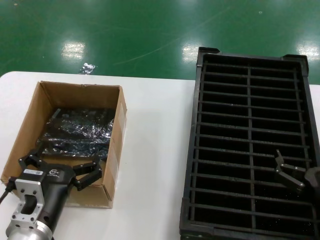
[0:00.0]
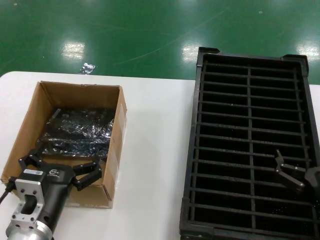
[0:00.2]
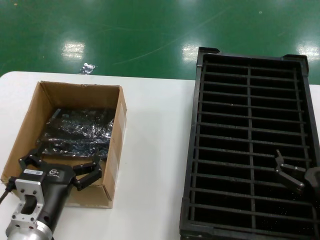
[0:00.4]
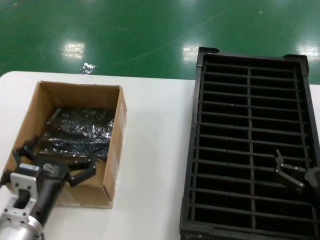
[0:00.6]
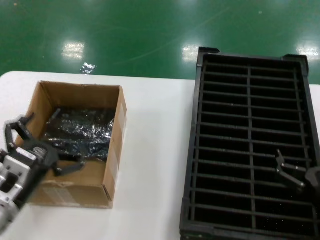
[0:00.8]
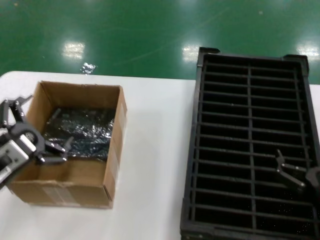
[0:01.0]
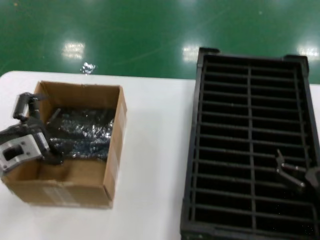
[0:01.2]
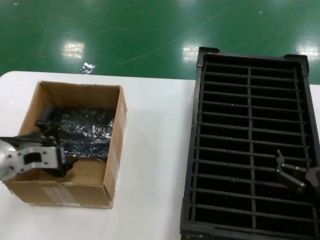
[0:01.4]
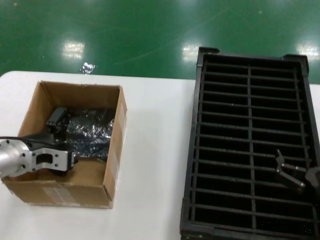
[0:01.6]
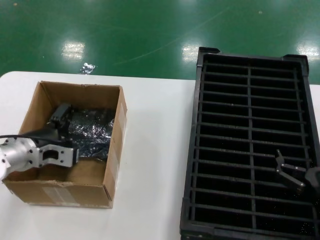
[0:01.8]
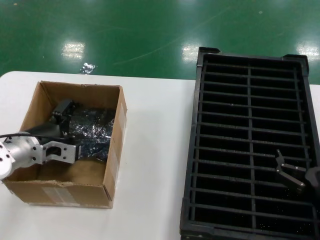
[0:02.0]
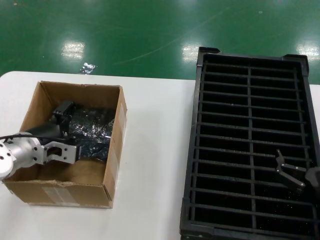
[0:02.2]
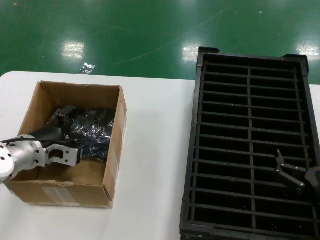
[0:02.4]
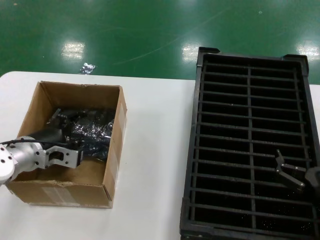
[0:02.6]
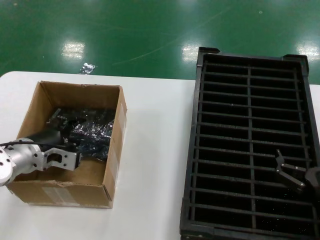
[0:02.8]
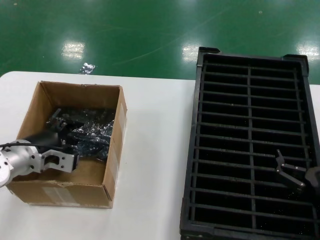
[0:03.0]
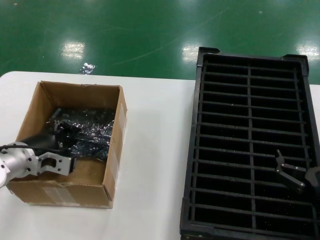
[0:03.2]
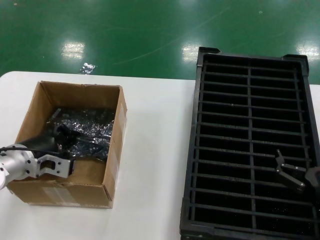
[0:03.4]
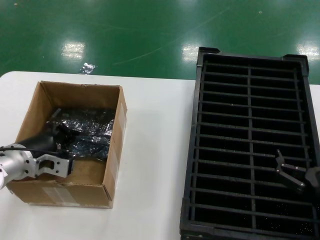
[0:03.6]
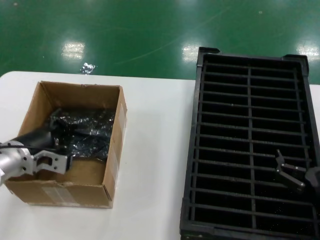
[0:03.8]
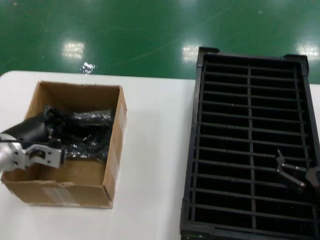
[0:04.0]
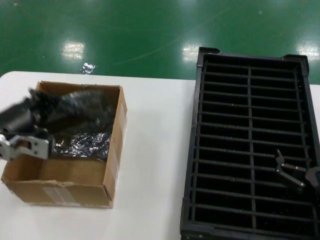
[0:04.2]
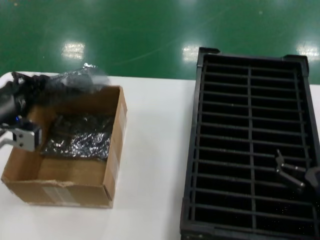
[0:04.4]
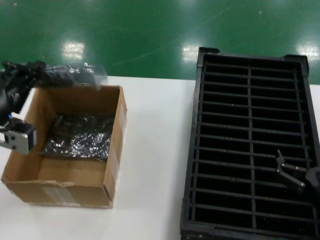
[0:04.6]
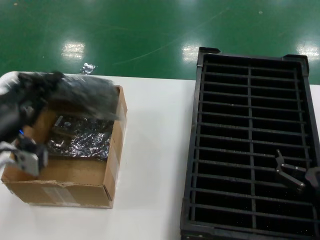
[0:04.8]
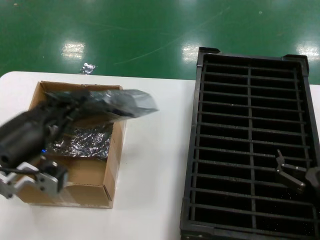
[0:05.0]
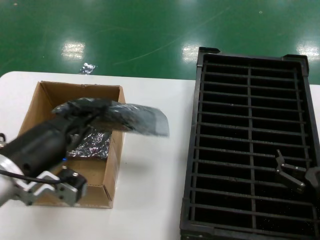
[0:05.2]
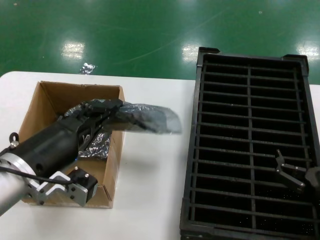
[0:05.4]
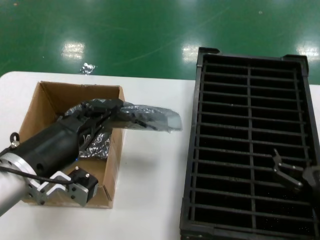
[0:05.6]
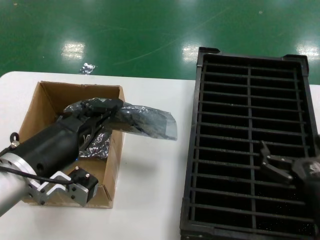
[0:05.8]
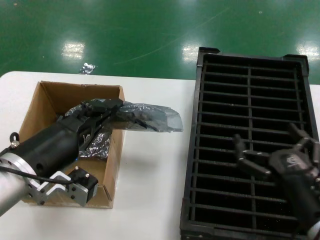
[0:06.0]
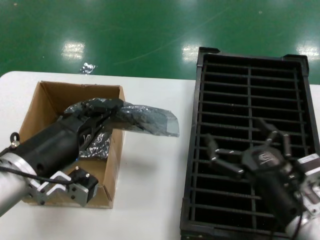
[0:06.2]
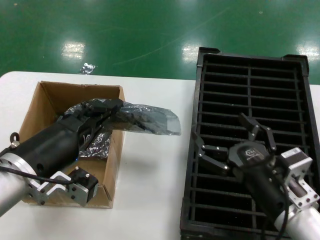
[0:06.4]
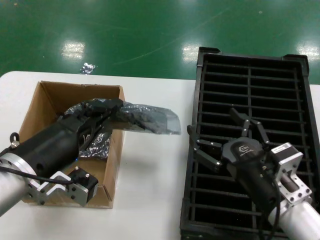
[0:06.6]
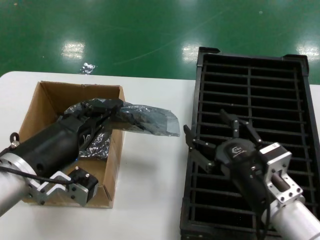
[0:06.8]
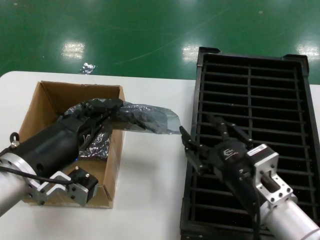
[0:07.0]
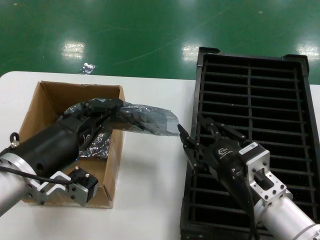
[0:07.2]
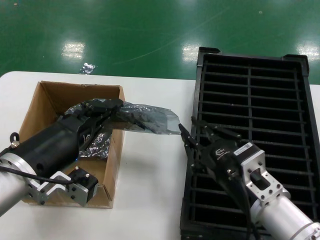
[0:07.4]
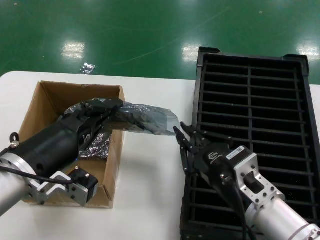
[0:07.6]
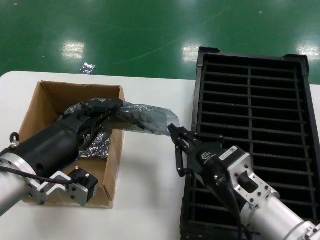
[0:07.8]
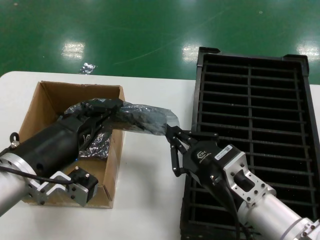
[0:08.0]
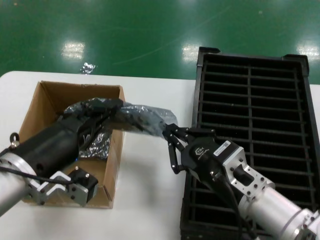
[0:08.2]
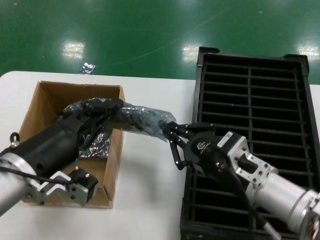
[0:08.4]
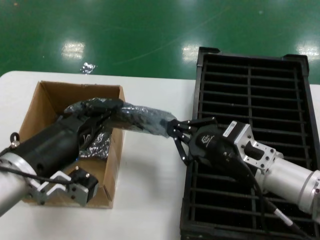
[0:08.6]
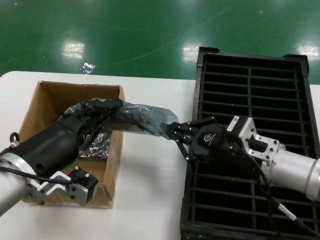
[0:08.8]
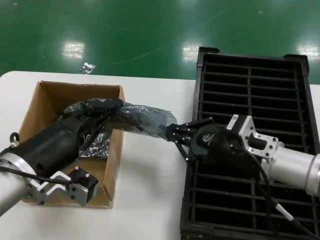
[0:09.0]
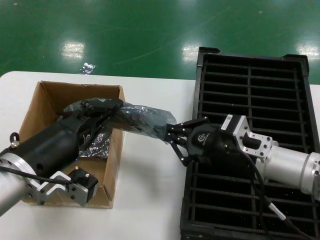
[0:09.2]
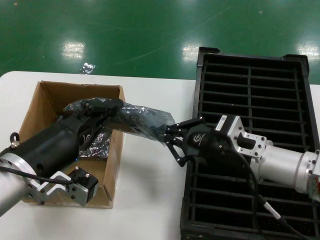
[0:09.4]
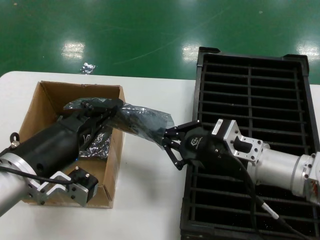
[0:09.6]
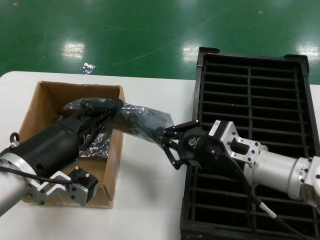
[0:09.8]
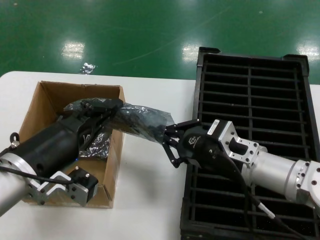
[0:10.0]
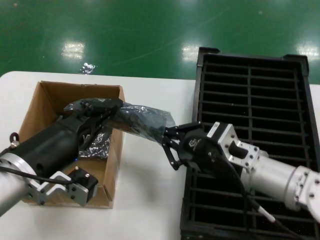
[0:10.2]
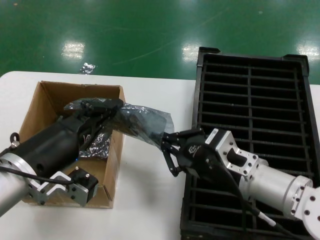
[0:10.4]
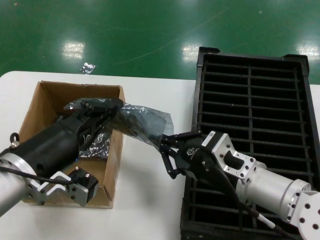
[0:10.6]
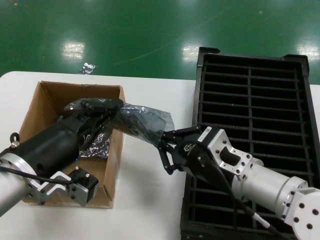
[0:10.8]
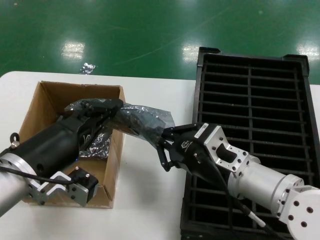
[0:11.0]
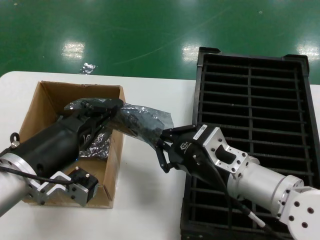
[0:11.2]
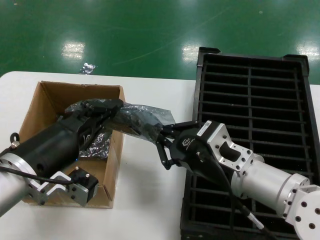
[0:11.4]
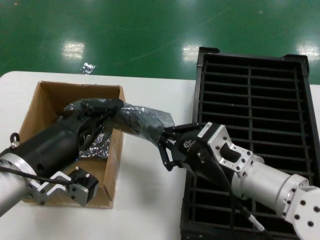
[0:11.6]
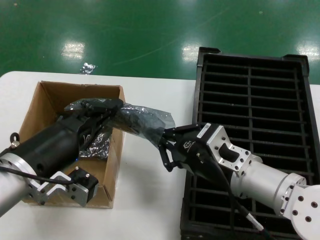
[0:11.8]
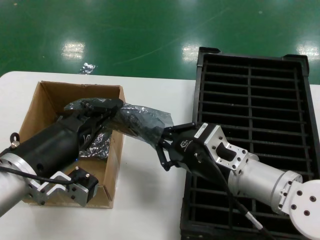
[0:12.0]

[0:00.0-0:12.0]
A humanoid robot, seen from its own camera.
Task of the whole recording: take out graphics card from box remove packaging put into black container.
Step, 0:00.0 to 0:03.6: Grasp the bag.
Step, 0:03.8 to 0:05.4: Lift the bag.
0:00.0 to 0:01.6: The left hand travels forward, to the left and upward by some 20 cm.
0:01.6 to 0:03.0: The hands make only small movements.
0:03.0 to 0:04.4: The left hand shifts roughly 10 cm upward and backward.
0:04.4 to 0:06.0: The left hand goes some 10 cm to the right and backward.
0:06.0 to 0:07.6: The right hand shifts roughly 10 cm to the left.
0:07.6 to 0:09.0: The right hand travels forward by approximately 10 cm.
0:09.0 to 0:10.4: The right hand moves approximately 5 cm.
0:10.4 to 0:12.0: The hands stay close to where they were, moving slightly.

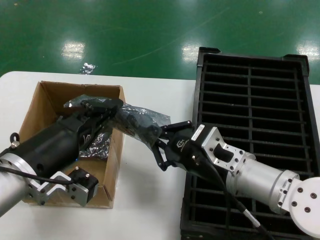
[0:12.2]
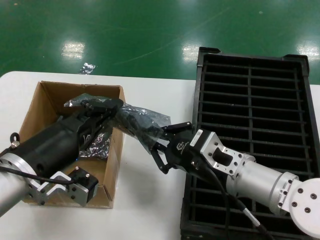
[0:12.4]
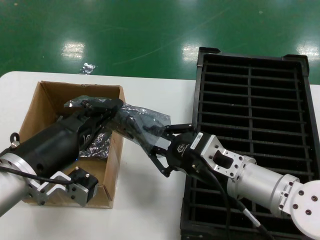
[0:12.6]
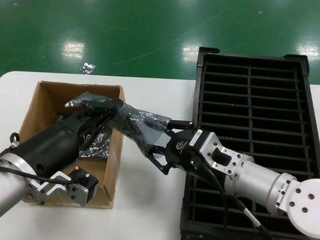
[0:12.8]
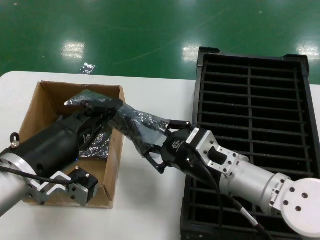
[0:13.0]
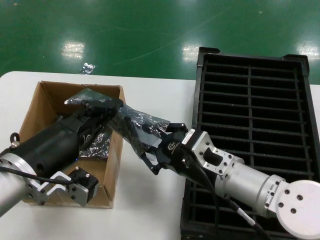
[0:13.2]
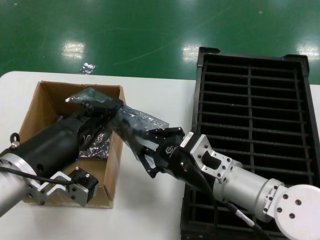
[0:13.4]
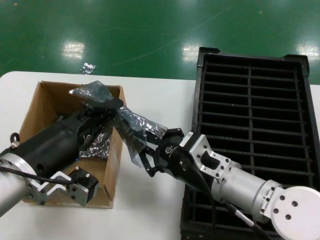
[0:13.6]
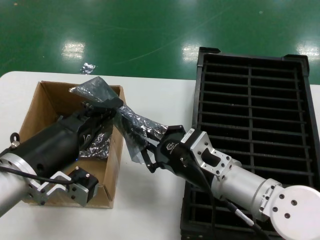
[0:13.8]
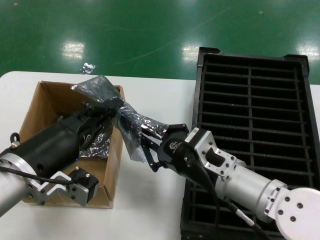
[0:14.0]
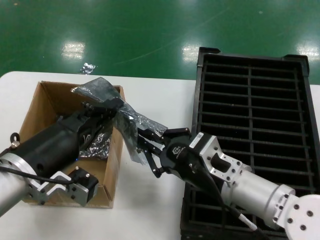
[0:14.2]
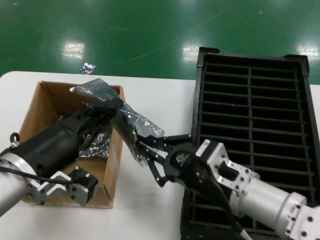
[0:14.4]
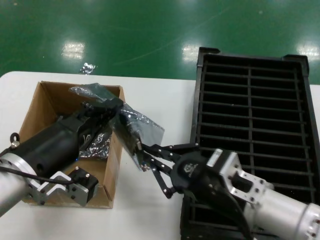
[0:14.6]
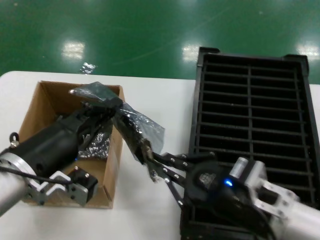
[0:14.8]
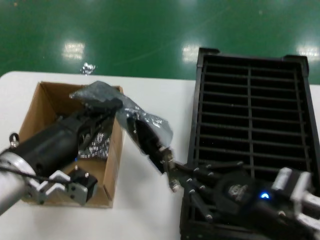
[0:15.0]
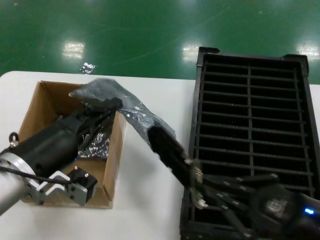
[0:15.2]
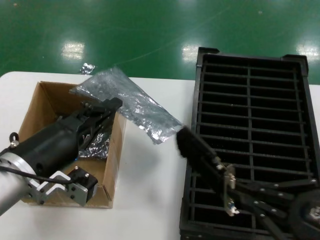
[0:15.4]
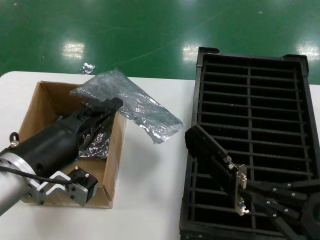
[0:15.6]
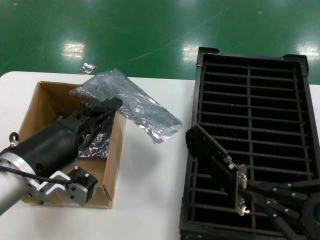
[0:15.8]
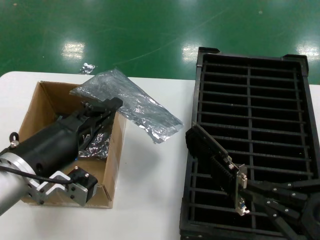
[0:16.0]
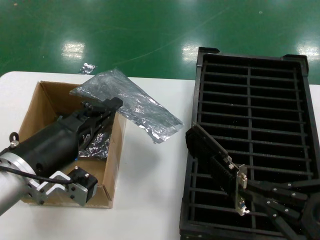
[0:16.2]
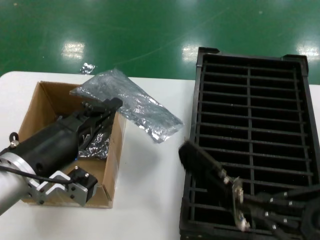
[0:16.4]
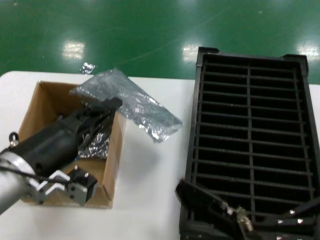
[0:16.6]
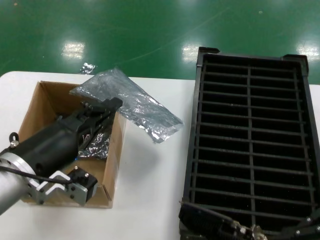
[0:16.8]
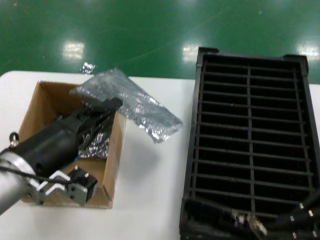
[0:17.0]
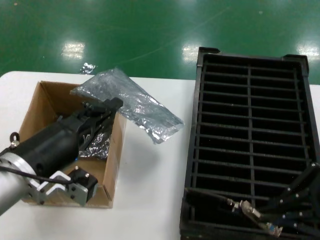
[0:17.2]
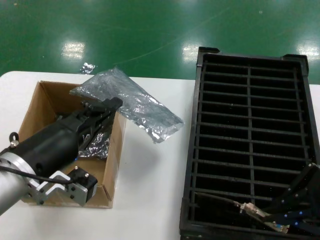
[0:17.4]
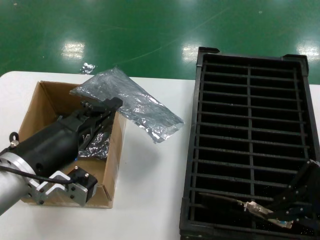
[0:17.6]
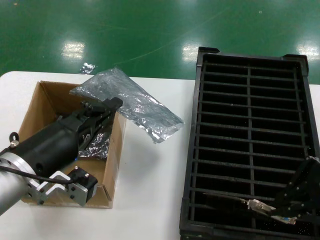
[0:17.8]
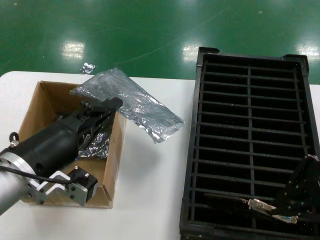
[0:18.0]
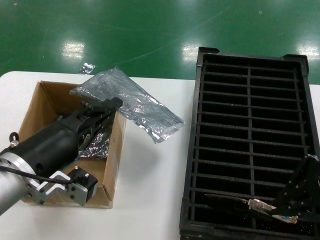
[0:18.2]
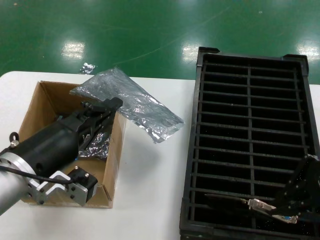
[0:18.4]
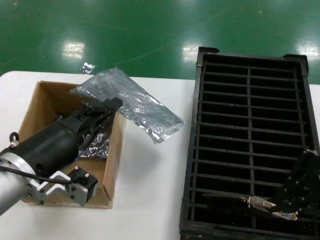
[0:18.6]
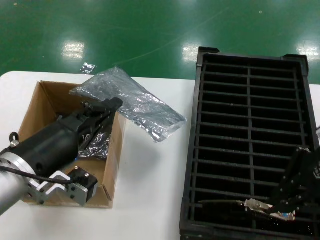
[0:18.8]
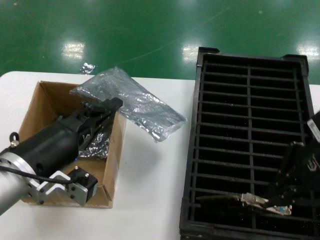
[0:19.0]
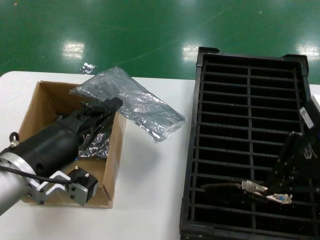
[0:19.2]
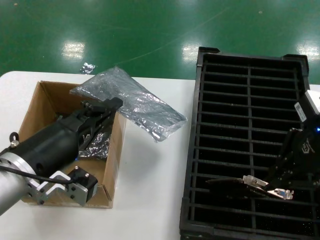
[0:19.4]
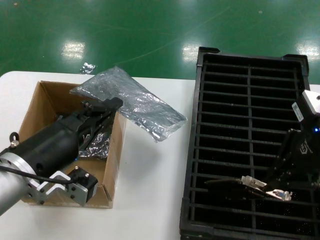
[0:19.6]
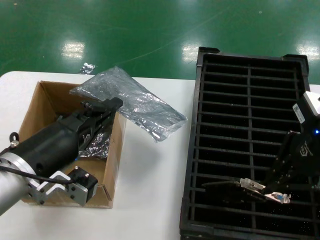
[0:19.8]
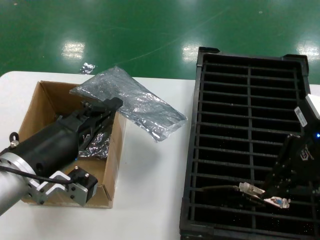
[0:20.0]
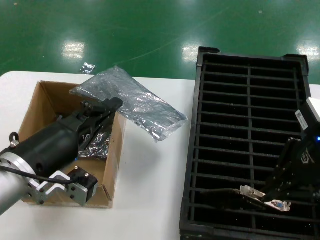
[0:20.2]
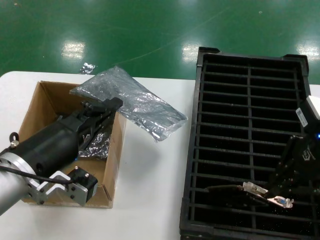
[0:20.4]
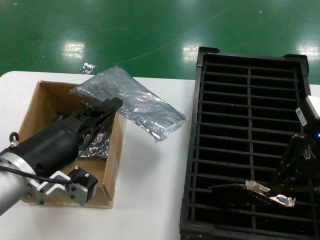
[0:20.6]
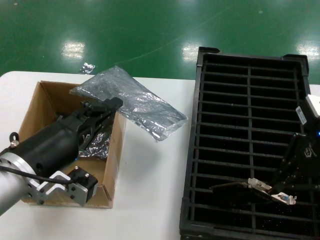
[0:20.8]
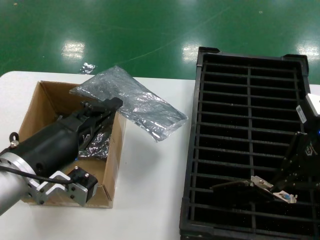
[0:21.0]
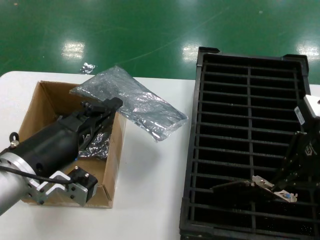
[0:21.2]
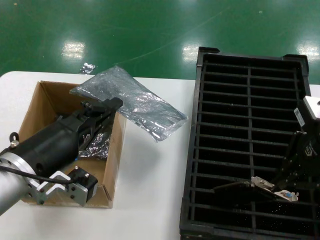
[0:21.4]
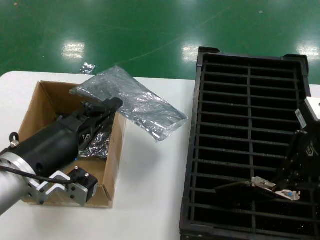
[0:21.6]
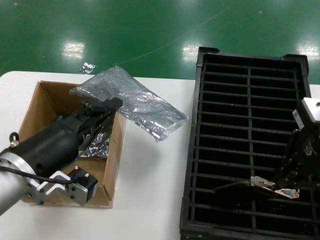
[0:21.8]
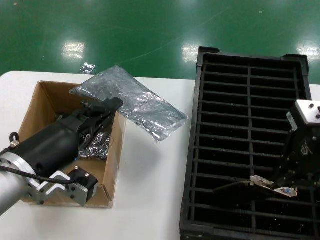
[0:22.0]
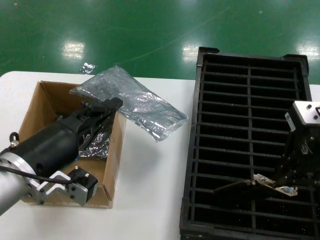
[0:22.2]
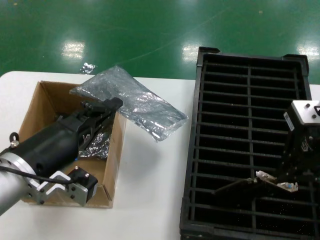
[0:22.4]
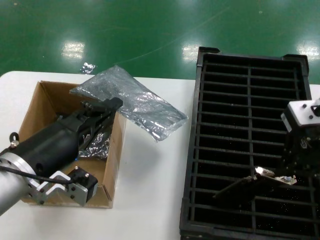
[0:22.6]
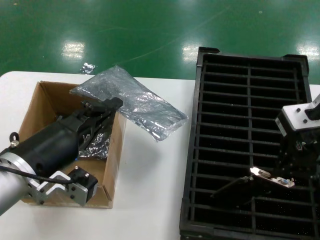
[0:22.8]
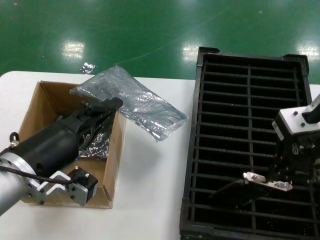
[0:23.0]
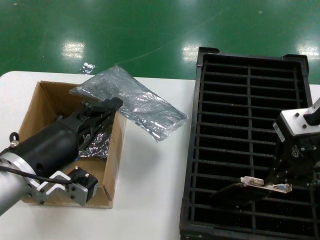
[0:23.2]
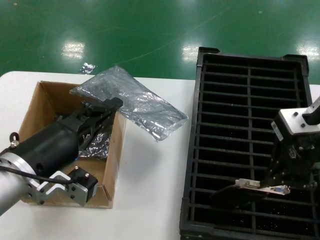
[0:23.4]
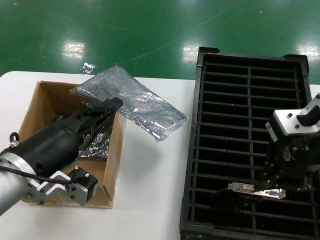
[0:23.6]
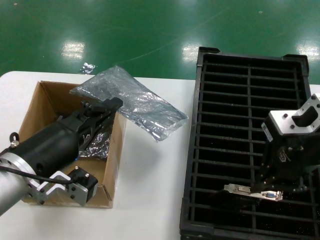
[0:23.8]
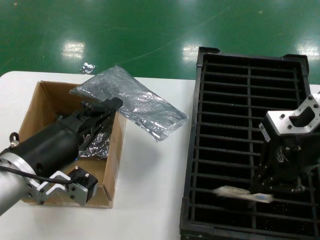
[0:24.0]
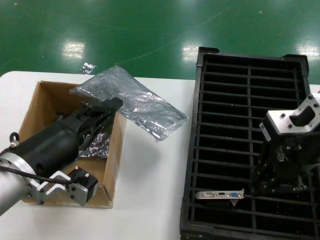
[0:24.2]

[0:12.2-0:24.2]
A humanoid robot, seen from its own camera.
Task of the whole recording: take out graphics card from box remove packaging put into black container.
Step, 0:12.2 to 0:15.2: Take out the hard disk of the bag.
0:12.2 to 0:13.8: The hands stay close to where they were, moving slightly.
0:13.8 to 0:15.2: The right hand is displaced to the right and backward by about 20 cm.
0:15.2 to 0:16.6: The right hand shifts approximately 10 cm to the right and upward.
0:16.6 to 0:18.2: The right hand shifts some 15 cm forward and upward.
0:18.2 to 0:19.8: The right hand heads forward, covering some 5 cm.
0:19.8 to 0:24.2: The hands make only small movements.
